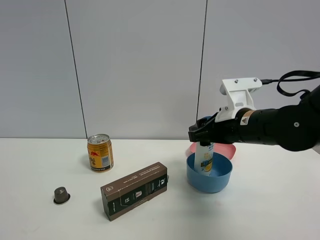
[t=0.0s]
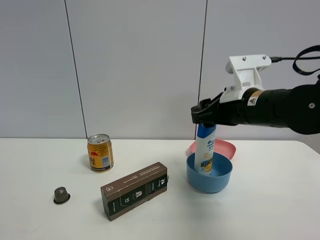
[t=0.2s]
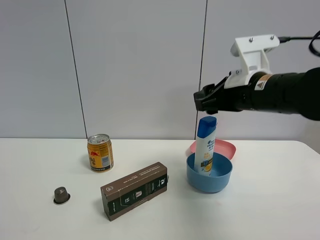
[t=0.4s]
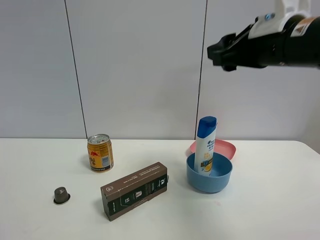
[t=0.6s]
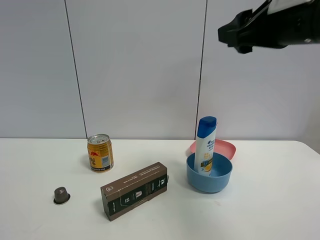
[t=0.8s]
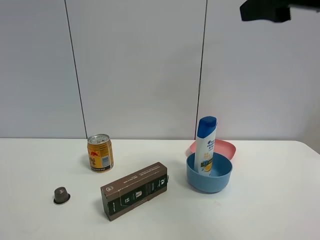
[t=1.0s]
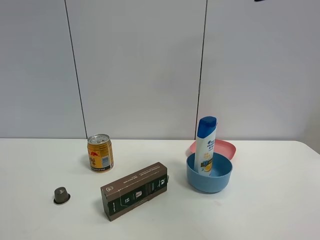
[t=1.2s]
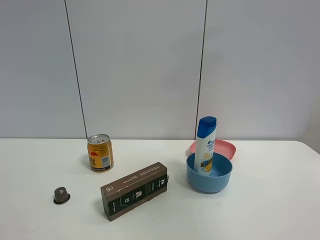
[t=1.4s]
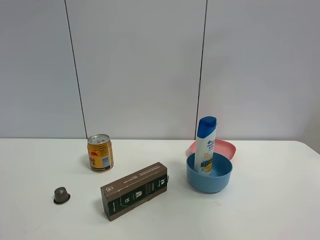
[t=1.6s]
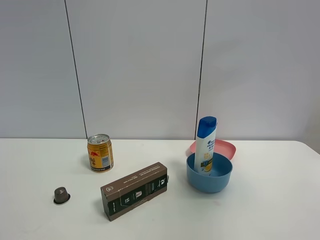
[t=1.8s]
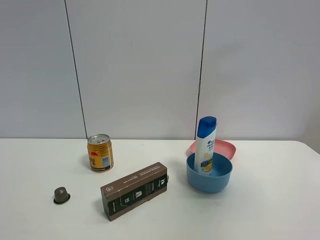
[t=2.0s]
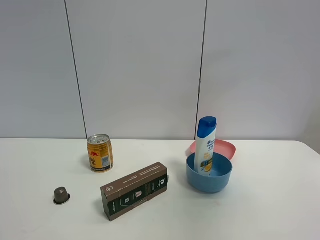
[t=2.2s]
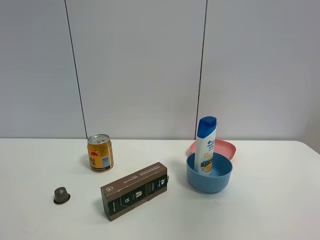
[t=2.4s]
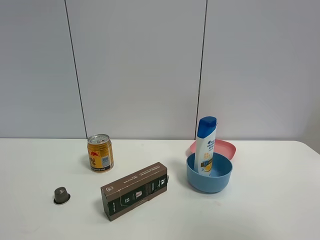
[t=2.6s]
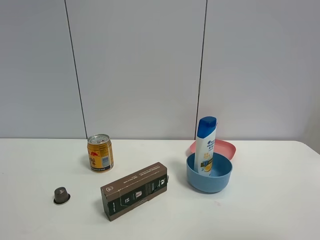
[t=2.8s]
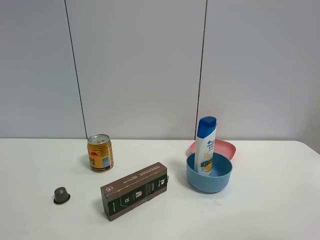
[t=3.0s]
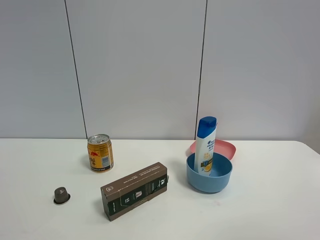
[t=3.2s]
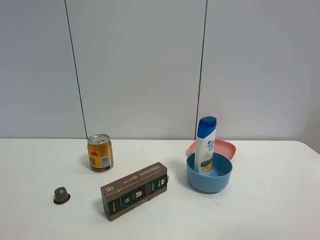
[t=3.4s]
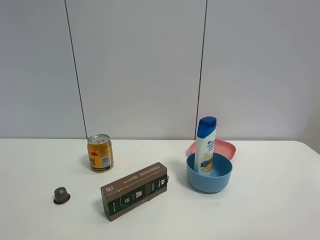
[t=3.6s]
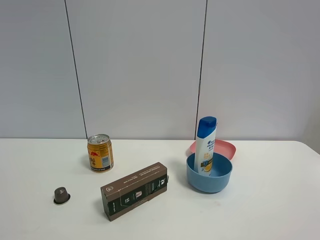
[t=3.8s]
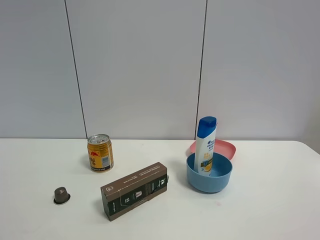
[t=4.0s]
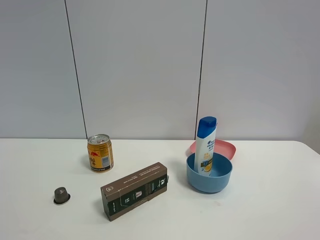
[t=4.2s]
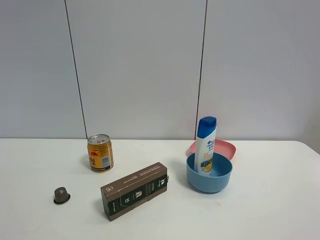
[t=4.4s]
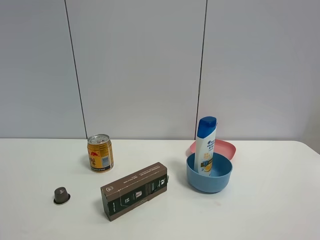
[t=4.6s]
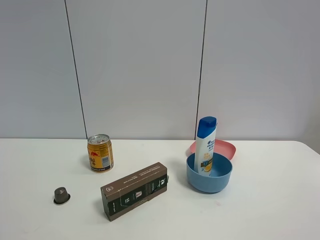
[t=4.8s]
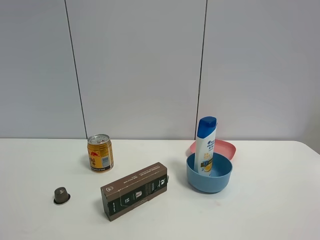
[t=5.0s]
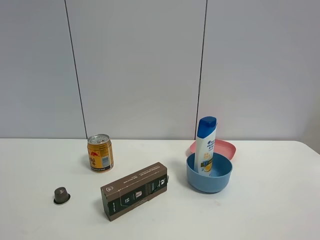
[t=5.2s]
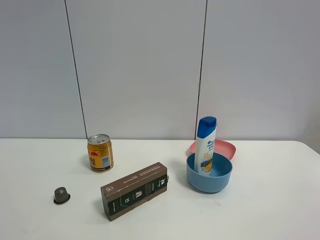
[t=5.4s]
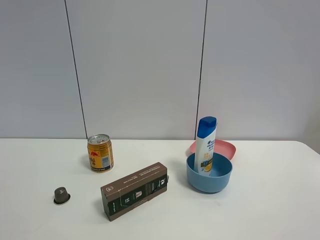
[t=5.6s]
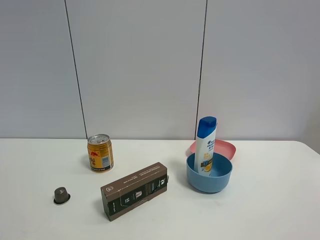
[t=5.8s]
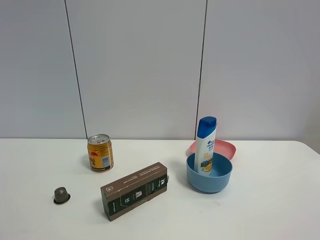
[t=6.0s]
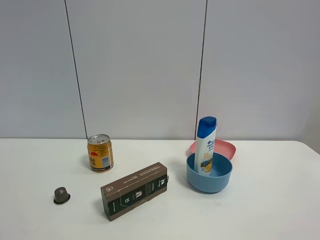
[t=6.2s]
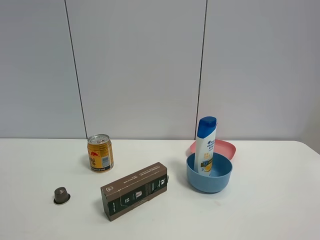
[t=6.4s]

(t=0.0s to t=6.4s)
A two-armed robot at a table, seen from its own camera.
Task of the whole recording: the gripper move the object.
t=0.0s - t=1.6s: The right gripper goes roughly 30 cm upward and backward, and opens its fingers.
t=1.6s - t=3.2s: The right gripper moves downward and backward, roughly 20 cm.
t=4.8s - t=6.4s: Both grippers stay about where they are.

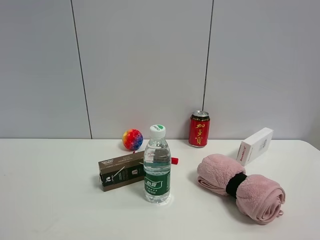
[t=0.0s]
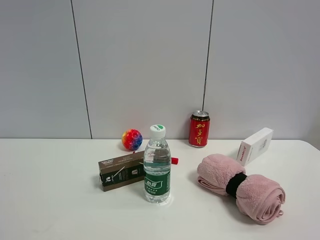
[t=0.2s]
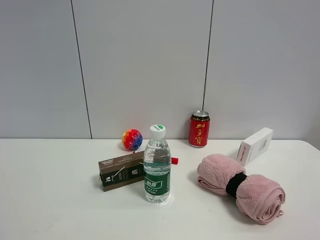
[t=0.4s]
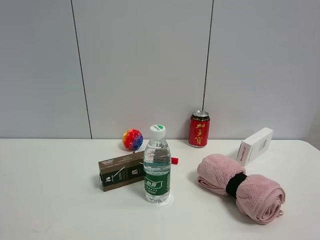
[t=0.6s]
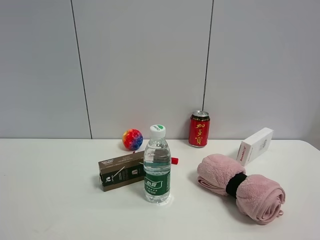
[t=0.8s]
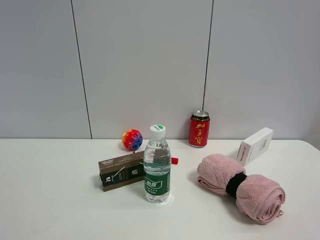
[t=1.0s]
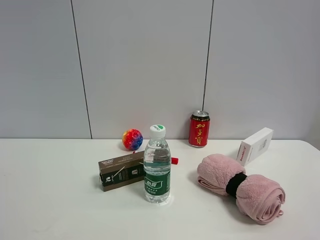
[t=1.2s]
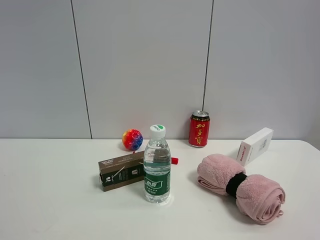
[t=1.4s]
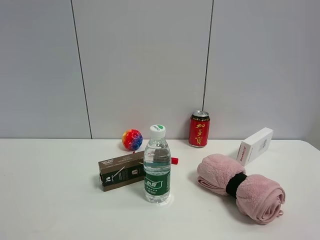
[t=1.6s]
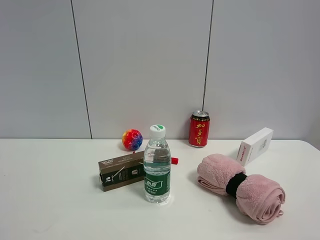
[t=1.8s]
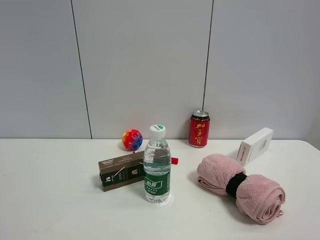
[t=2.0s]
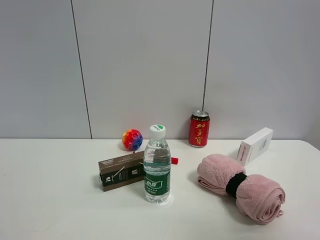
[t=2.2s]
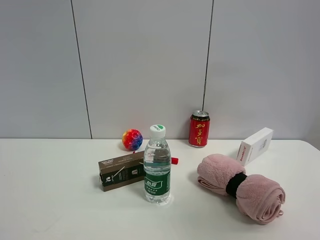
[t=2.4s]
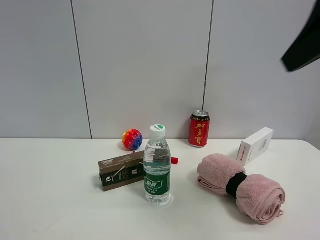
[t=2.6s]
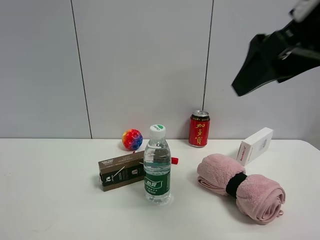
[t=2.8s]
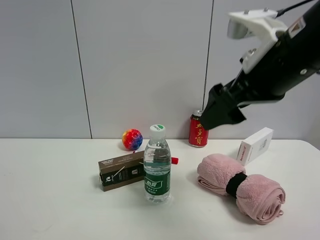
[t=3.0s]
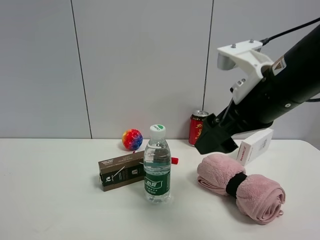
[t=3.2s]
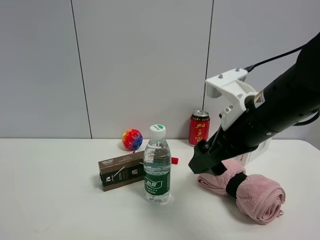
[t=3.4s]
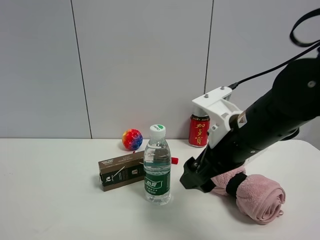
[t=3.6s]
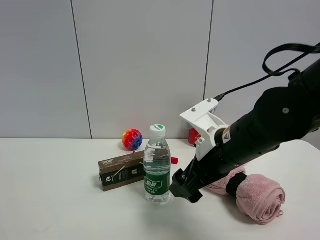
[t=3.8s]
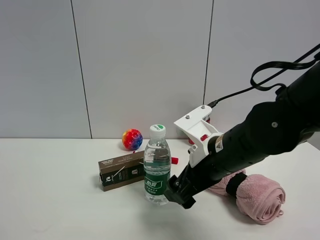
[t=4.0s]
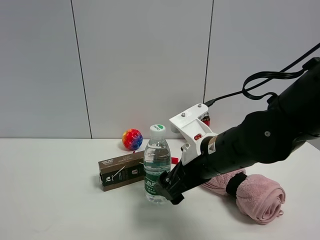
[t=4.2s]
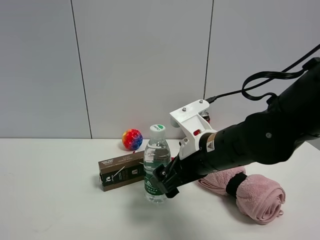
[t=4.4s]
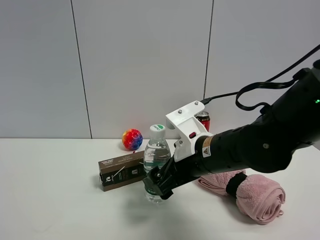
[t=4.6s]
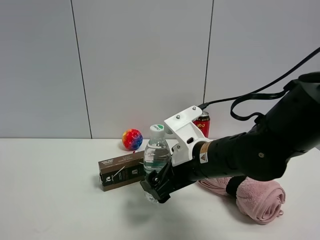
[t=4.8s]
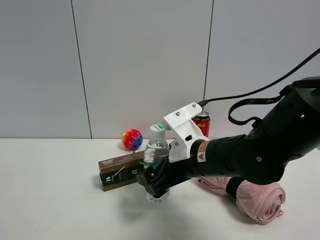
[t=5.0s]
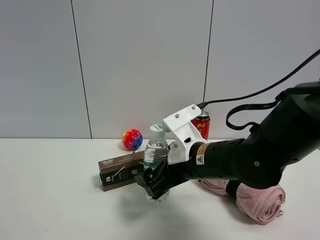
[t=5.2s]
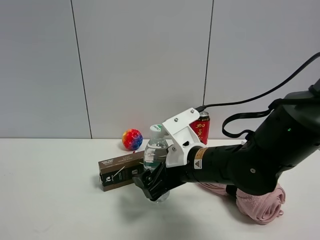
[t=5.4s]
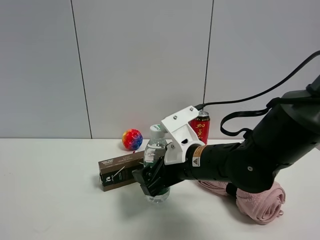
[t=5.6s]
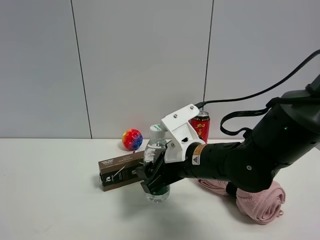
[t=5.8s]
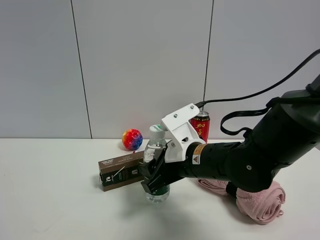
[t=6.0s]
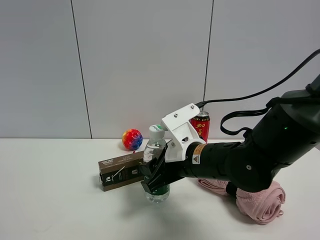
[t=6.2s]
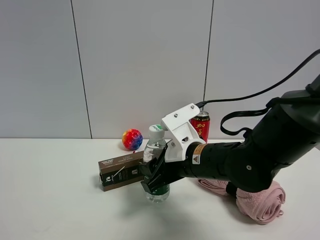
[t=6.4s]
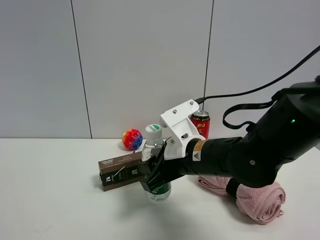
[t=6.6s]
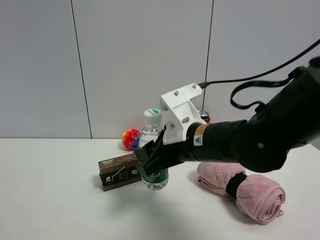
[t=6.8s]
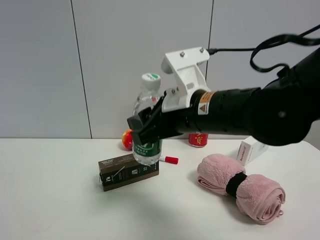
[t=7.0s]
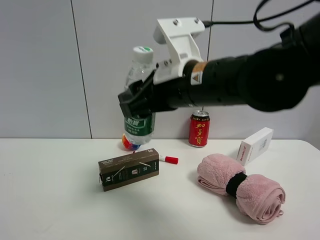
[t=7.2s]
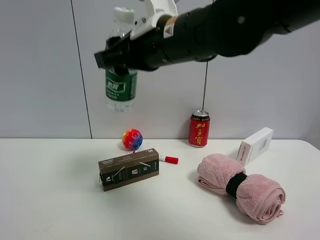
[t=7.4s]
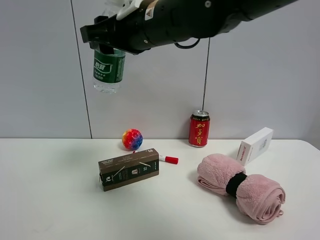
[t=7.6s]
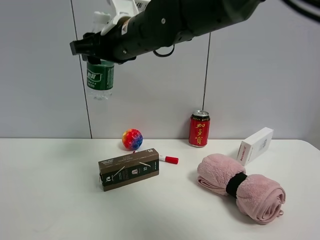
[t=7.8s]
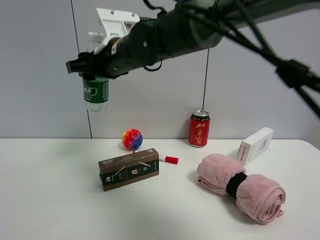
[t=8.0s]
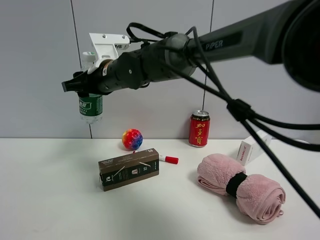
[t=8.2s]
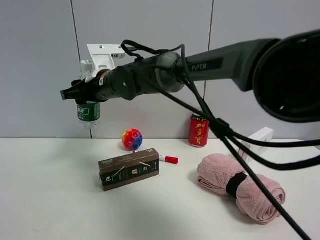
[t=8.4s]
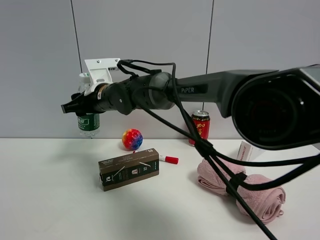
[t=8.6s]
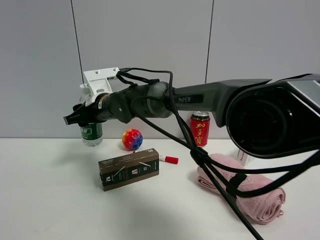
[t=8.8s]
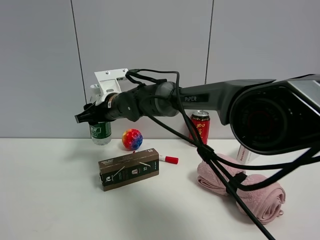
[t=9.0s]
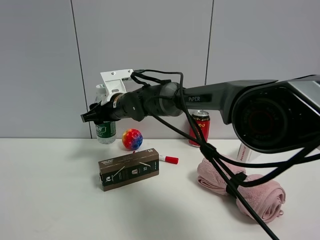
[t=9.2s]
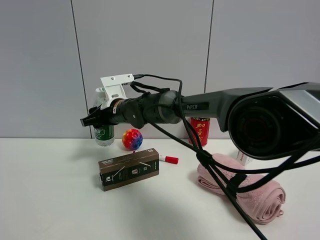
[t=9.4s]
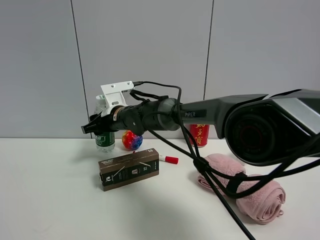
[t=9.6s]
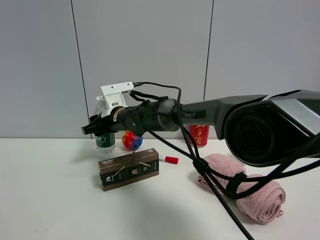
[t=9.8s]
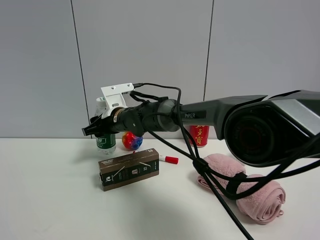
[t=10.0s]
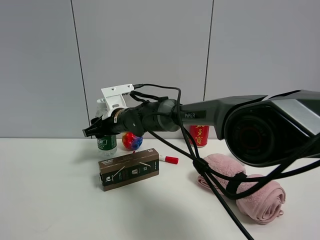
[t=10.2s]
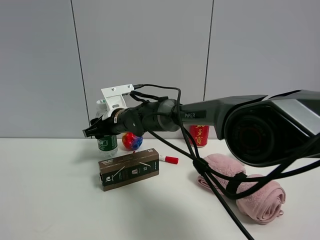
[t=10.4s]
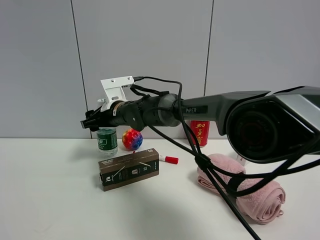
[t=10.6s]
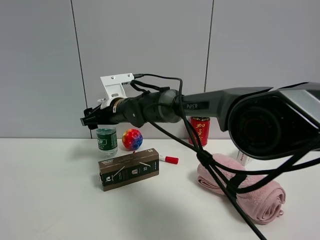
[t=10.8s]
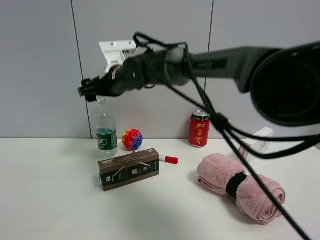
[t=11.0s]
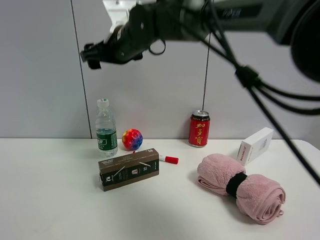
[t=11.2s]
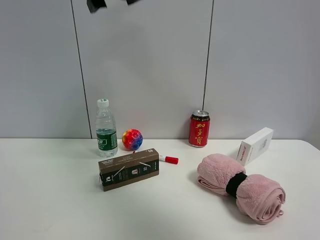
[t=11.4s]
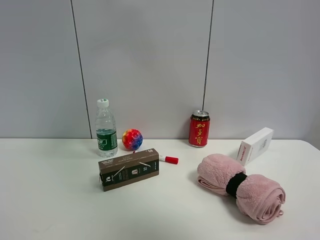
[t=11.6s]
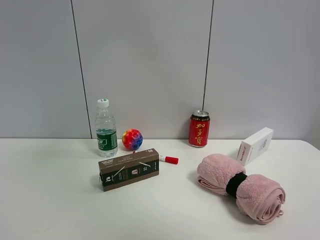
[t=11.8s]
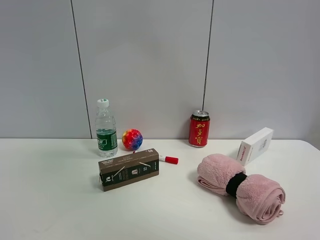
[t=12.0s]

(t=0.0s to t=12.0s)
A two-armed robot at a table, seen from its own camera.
Task of the whole recording: the gripper move the object.
Step, t=0.0s - t=6.2s: Grasp the YiBao mineral water with the right gripper.
Step, t=6.4s - t=10.8s: Place the YiBao mineral water on the table with the right gripper.
t=0.0s - t=1.6s: Neither gripper changes place.
t=1.6s - t=3.0s: The right gripper moves forward and to the left, roughly 30 cm.
t=3.0s - t=4.4s: The right gripper shifts about 15 cm downward and to the left.
t=4.4s - t=6.0s: The right gripper closes its fingers.
t=6.0s - t=7.6s: The right gripper moves upward and to the left, roughly 20 cm.
t=7.6s - t=9.0s: The right gripper shifts some 20 cm downward, forward and to the left.
t=9.0s - t=10.4s: The grippers make only small movements.
t=10.4s - t=12.0s: The right gripper heads upward and backward, covering approximately 50 cm, and opens.

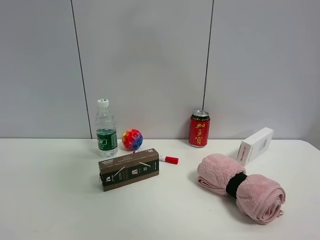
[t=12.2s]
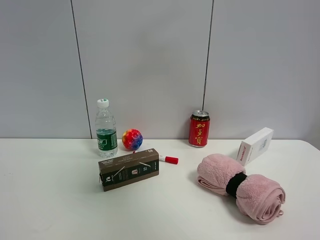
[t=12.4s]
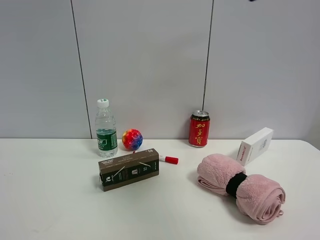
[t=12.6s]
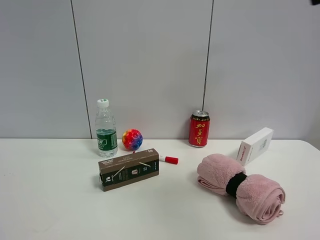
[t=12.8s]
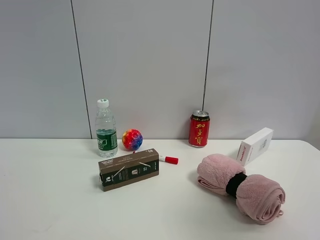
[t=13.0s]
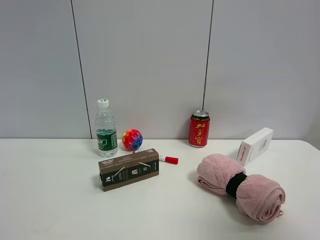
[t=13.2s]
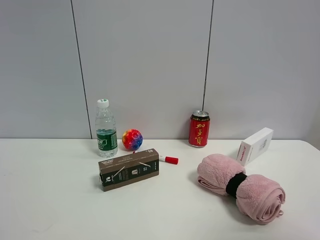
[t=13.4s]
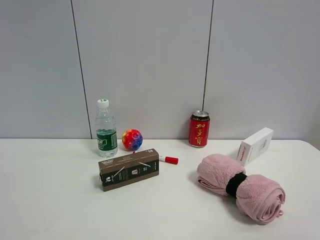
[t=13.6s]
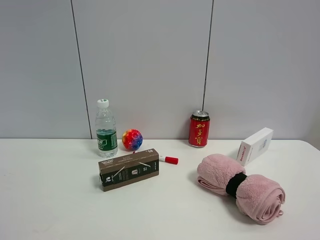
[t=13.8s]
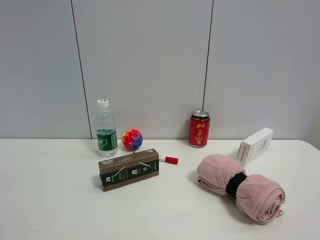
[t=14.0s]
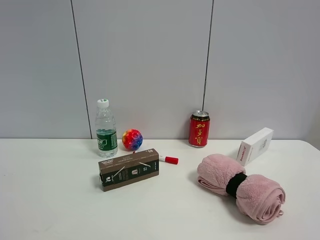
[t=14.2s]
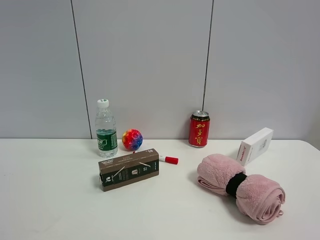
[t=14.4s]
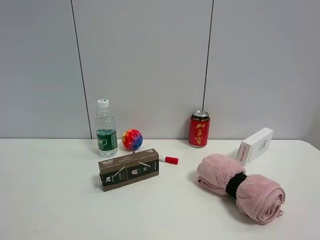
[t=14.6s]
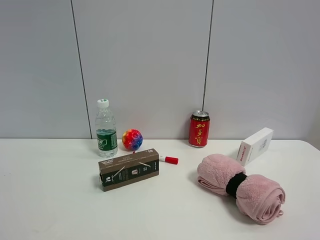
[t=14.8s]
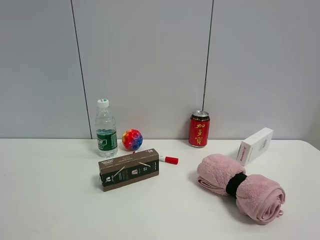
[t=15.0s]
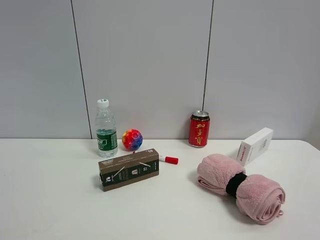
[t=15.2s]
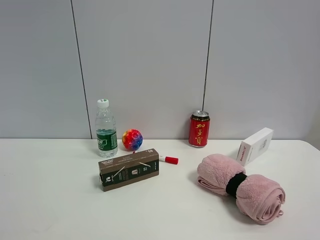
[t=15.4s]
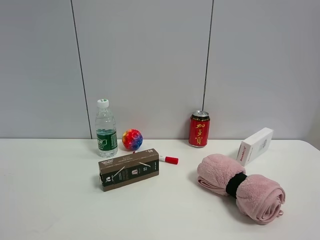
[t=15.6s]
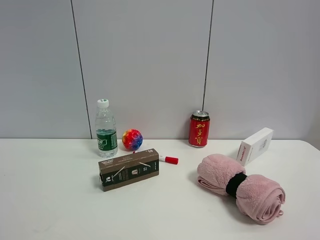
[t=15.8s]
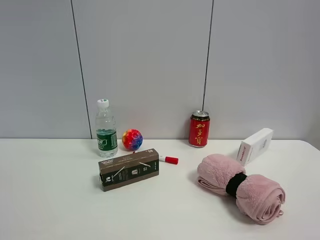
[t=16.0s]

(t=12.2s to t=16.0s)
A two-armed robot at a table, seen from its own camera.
Task of the whole recording: the gripper move the object.
t=12.2s - t=13.4s: The right gripper moves to the right, backward and downward, about 30 cm.
t=13.4s - t=14.8s: The right gripper shifts approximately 10 cm downward.
t=14.8s - t=16.0s: Both grippers stay put.
